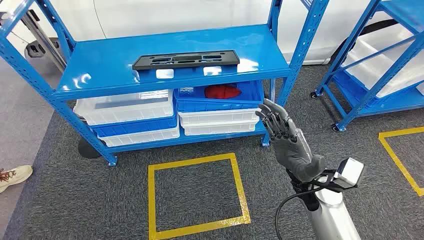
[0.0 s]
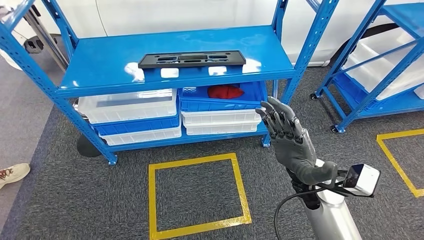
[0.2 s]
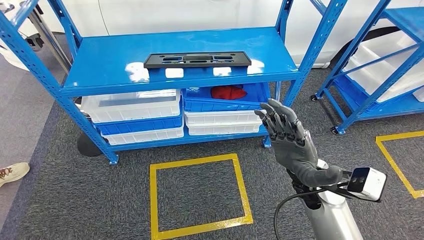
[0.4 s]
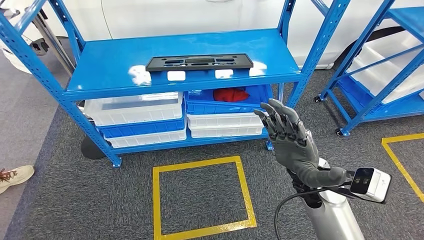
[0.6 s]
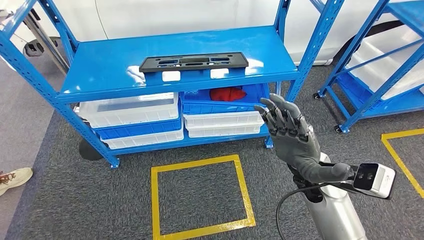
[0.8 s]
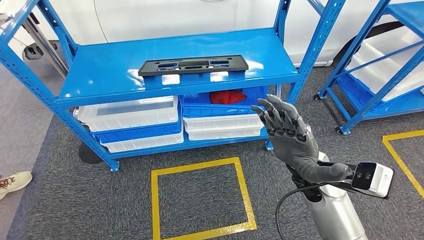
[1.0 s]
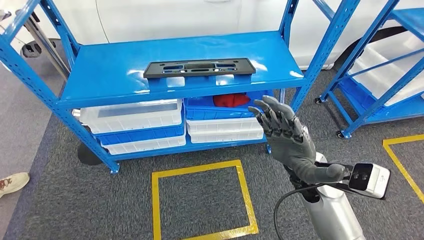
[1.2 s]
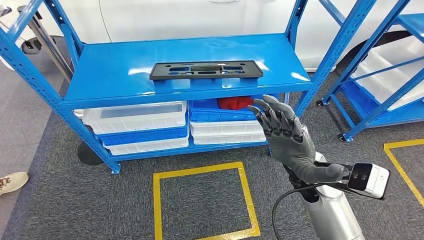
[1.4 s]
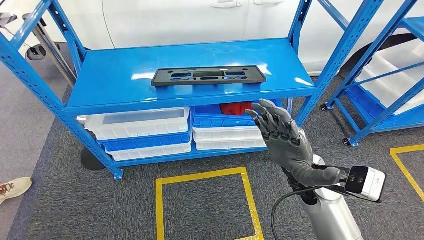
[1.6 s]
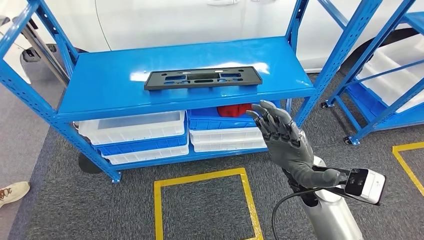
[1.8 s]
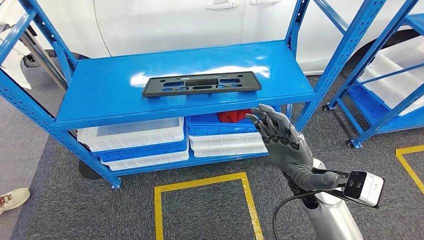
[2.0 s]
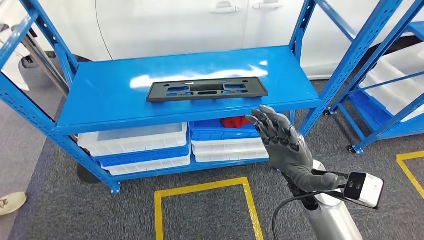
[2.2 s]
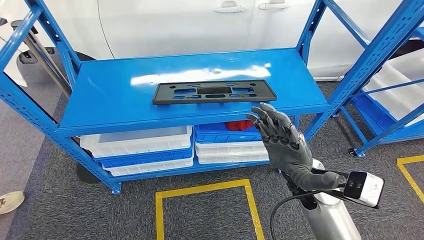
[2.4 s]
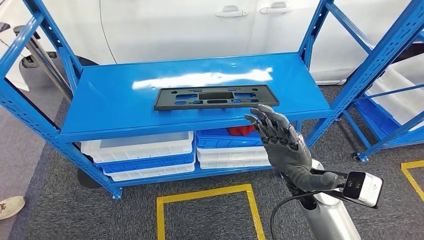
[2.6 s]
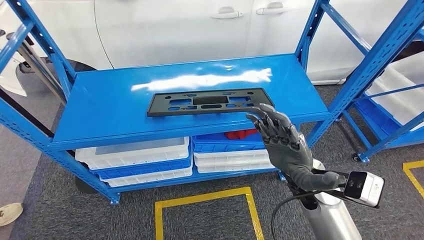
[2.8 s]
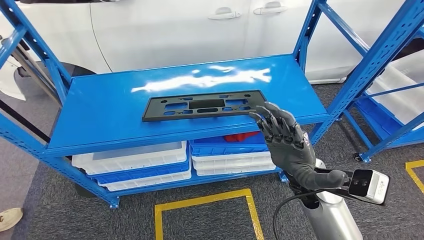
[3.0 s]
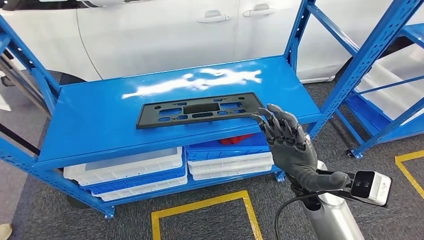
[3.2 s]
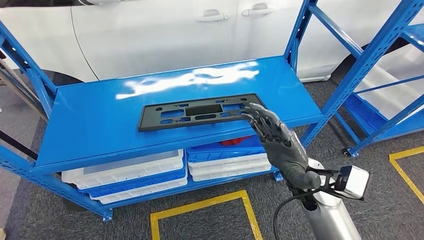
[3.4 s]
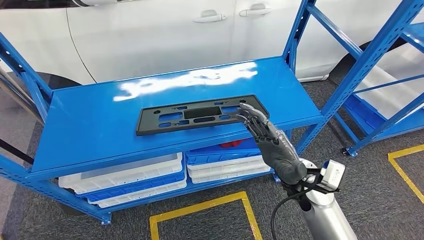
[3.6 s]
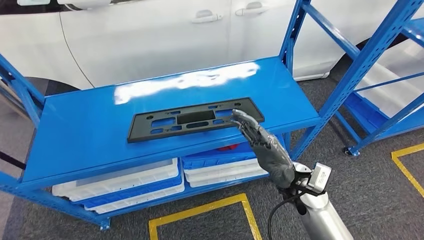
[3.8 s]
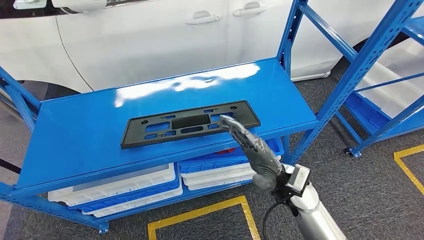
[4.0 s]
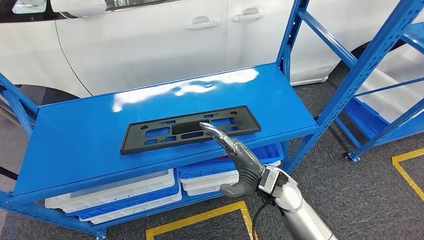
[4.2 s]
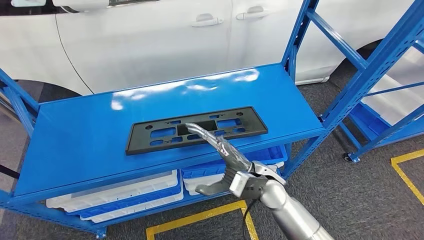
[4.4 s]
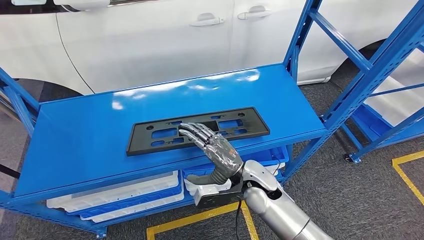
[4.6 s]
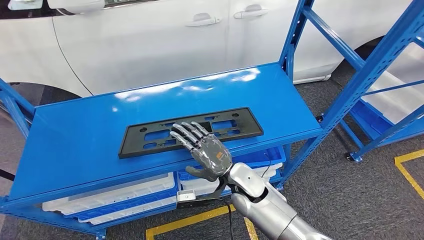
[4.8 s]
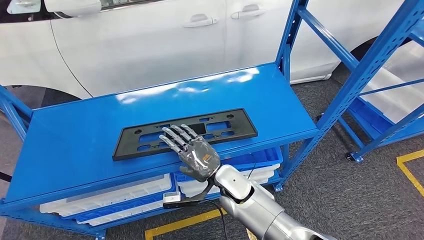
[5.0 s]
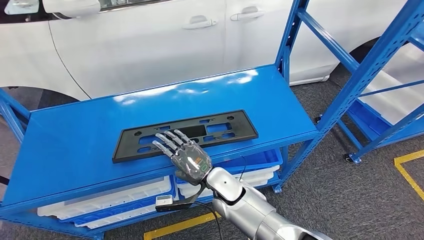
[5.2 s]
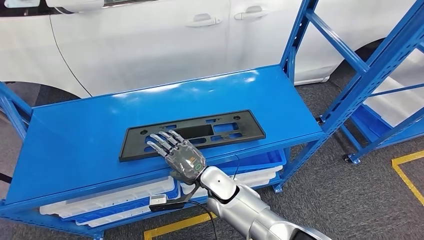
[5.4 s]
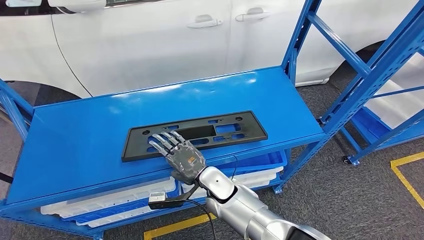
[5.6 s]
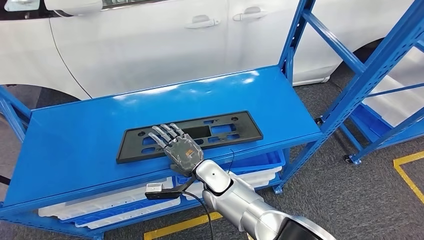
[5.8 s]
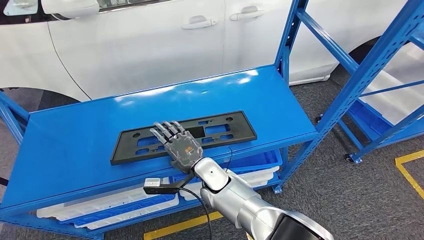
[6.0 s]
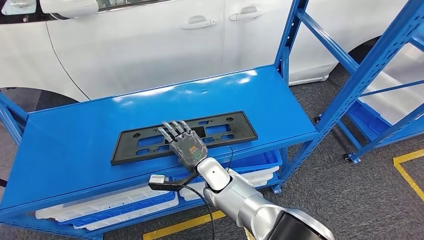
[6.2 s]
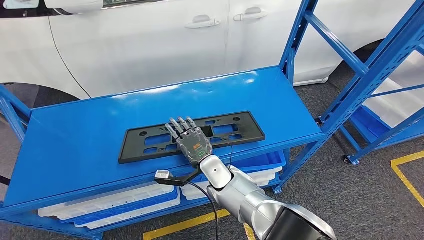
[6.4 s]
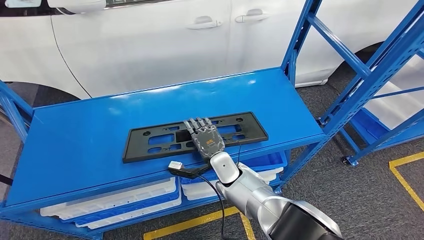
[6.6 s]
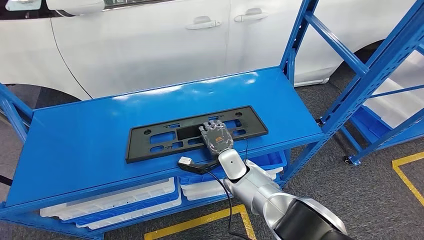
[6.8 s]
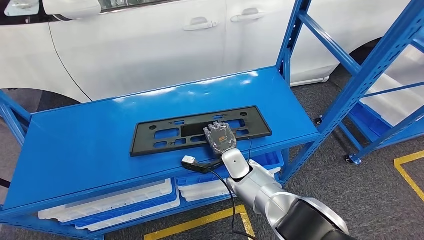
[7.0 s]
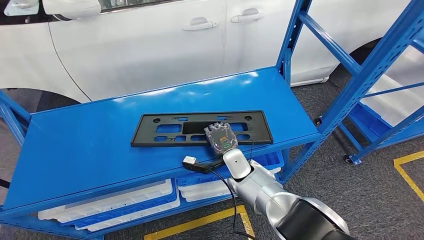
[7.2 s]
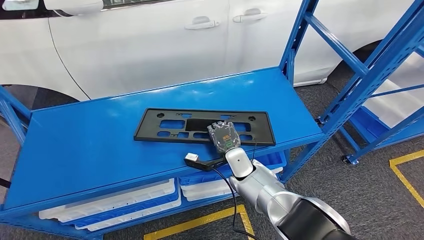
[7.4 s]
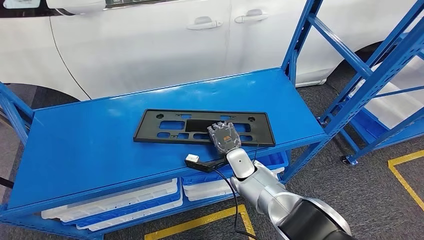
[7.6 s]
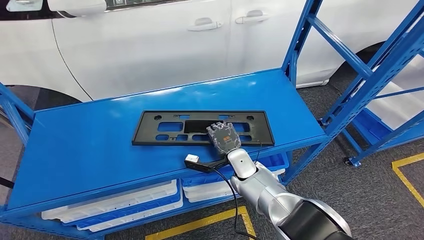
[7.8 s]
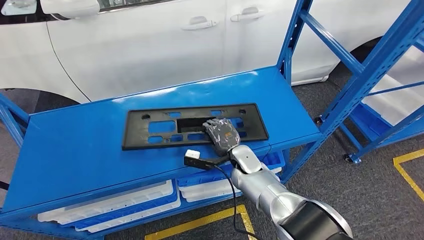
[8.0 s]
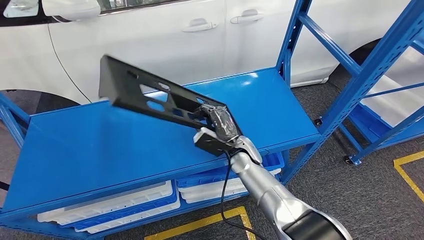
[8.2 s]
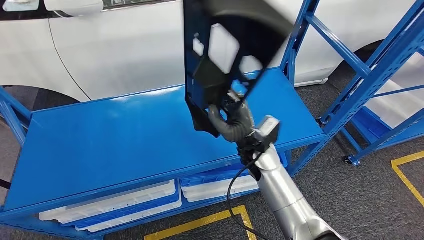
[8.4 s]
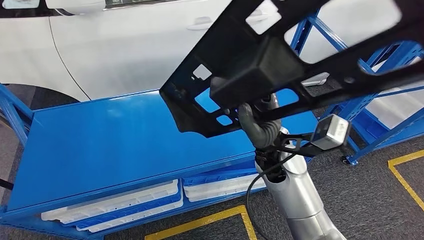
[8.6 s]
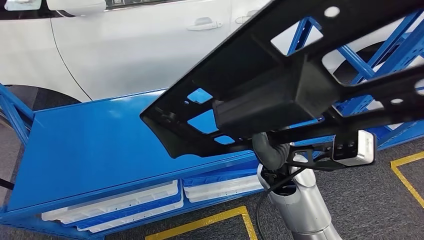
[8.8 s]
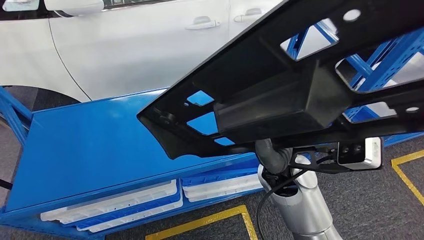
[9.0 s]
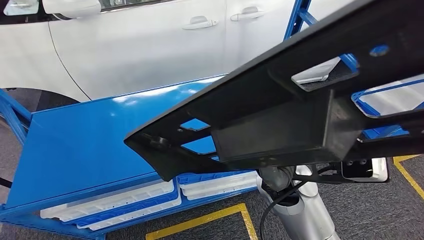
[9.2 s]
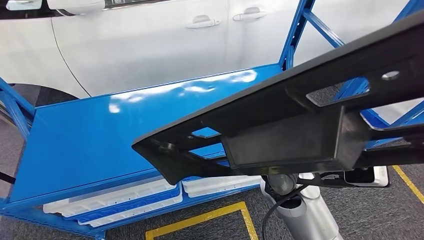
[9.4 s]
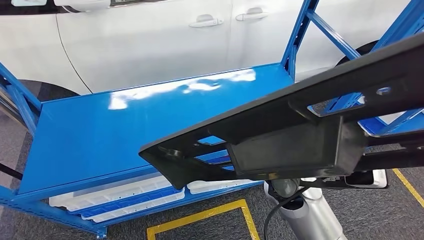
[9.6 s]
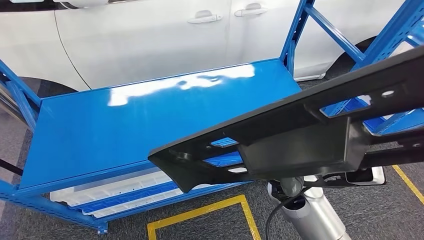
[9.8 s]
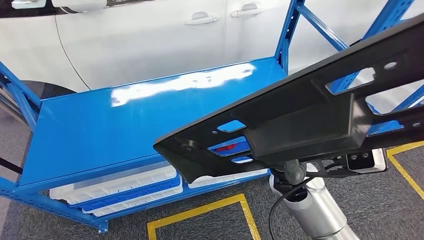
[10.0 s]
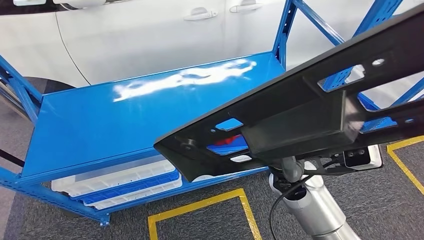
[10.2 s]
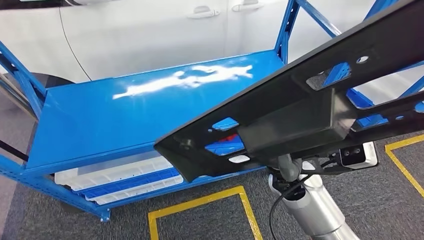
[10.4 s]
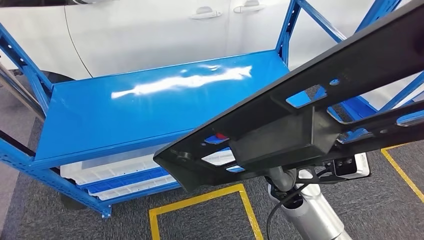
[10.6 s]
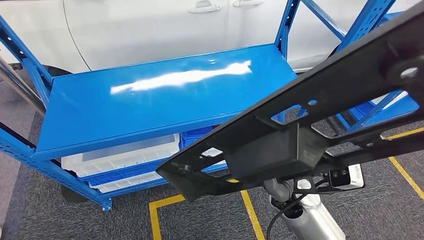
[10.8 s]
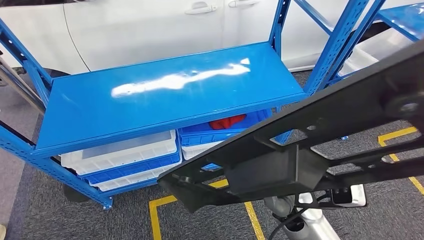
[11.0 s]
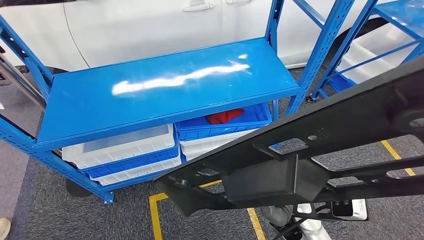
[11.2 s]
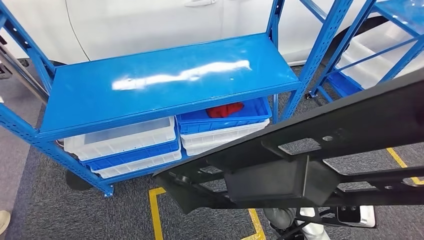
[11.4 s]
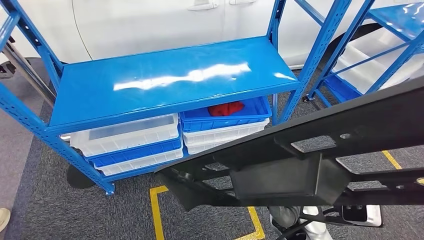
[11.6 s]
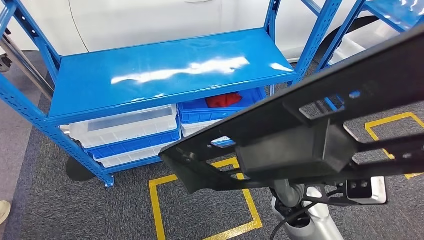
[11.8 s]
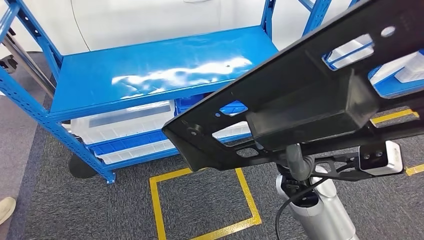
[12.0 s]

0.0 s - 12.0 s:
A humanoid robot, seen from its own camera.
Step, 0.0 s - 9.6 s: Pick up the large material from the shelf.

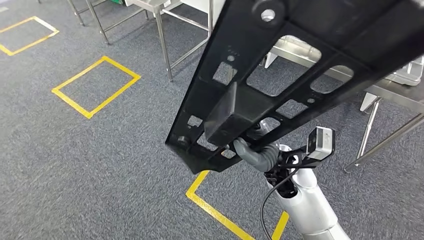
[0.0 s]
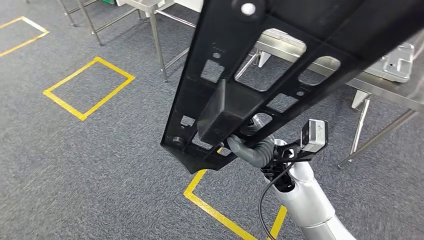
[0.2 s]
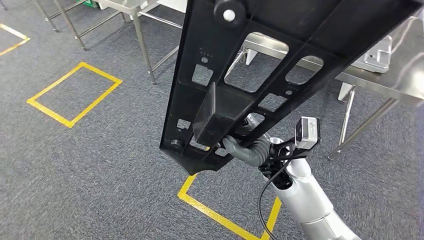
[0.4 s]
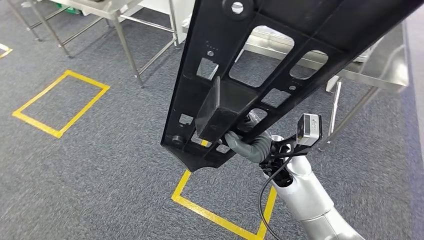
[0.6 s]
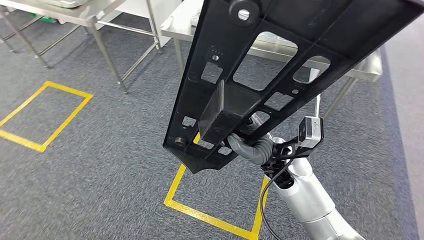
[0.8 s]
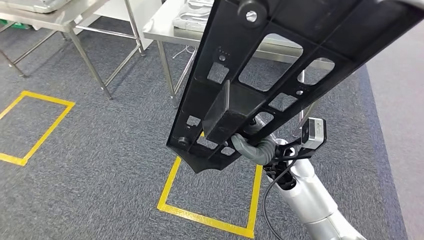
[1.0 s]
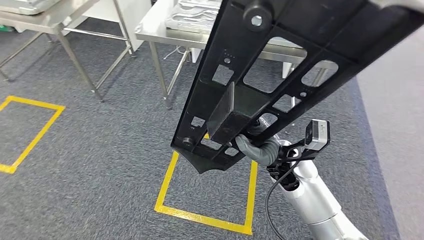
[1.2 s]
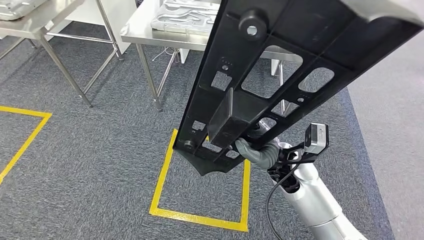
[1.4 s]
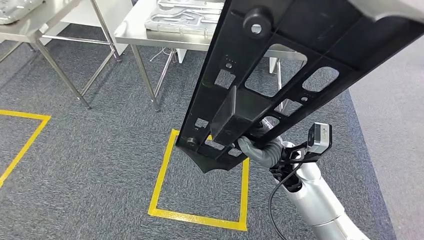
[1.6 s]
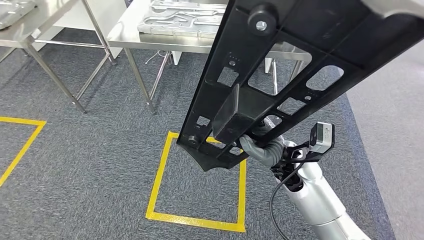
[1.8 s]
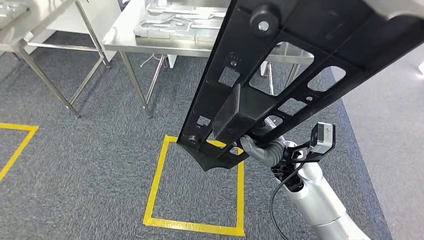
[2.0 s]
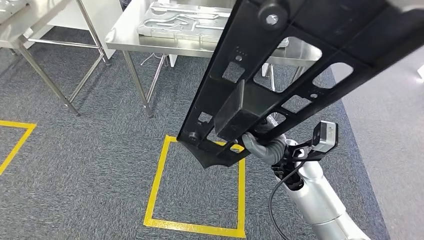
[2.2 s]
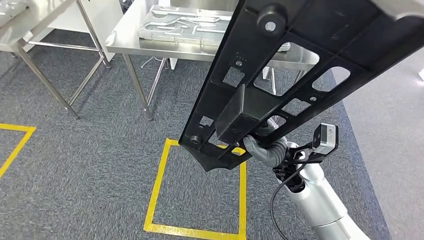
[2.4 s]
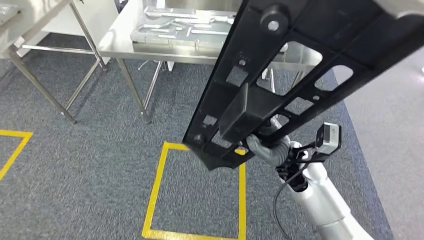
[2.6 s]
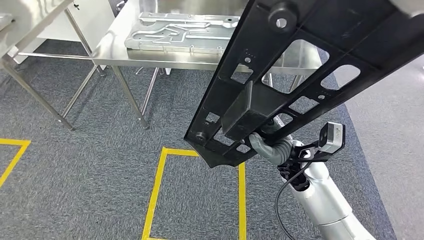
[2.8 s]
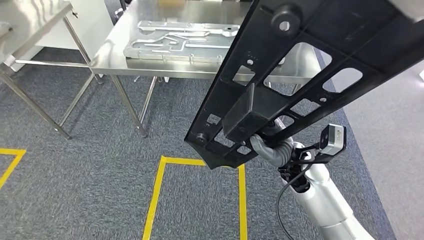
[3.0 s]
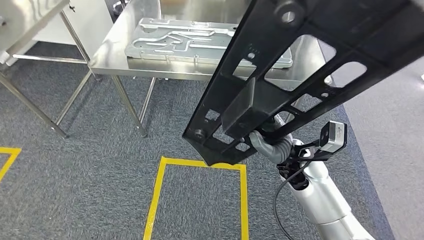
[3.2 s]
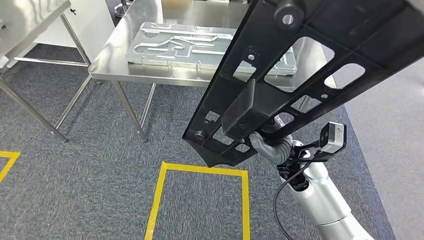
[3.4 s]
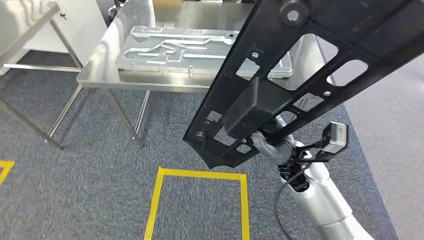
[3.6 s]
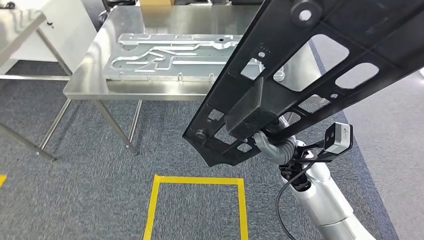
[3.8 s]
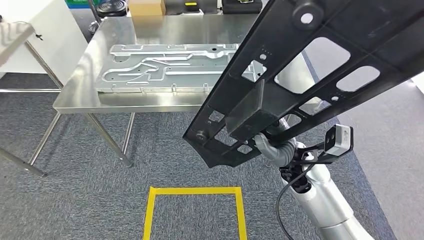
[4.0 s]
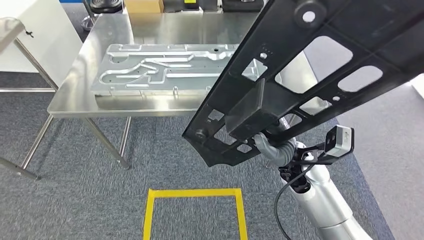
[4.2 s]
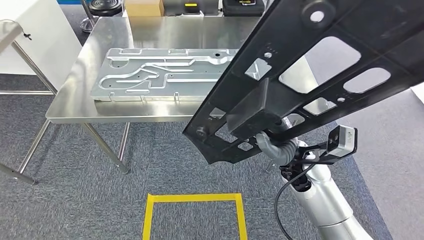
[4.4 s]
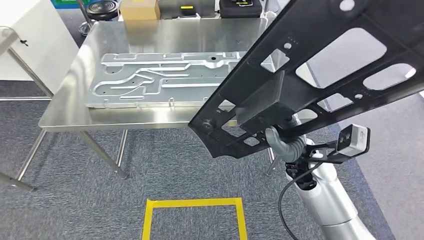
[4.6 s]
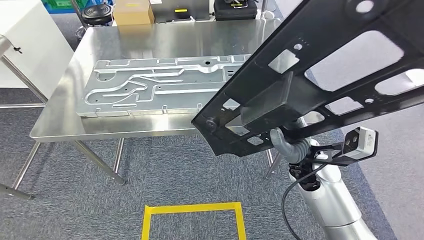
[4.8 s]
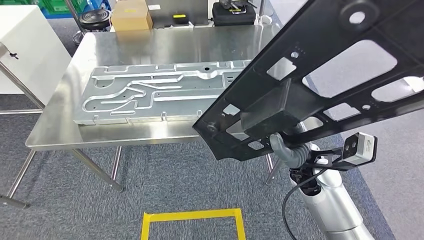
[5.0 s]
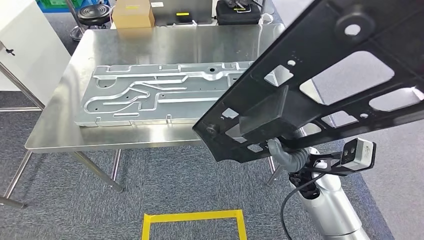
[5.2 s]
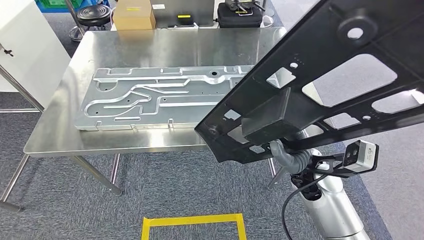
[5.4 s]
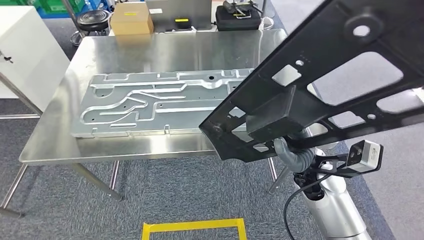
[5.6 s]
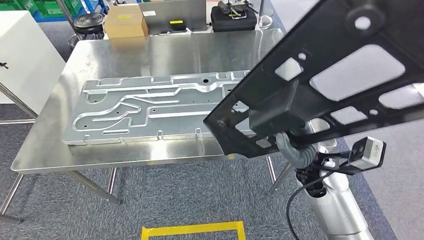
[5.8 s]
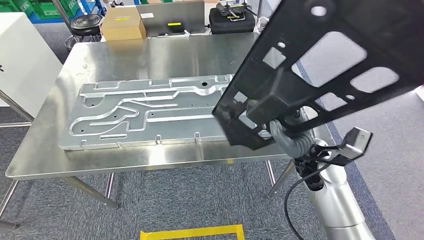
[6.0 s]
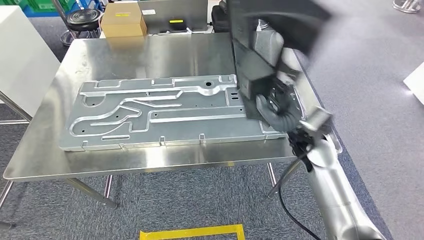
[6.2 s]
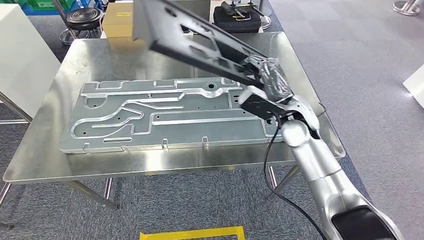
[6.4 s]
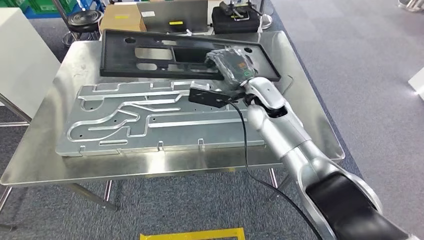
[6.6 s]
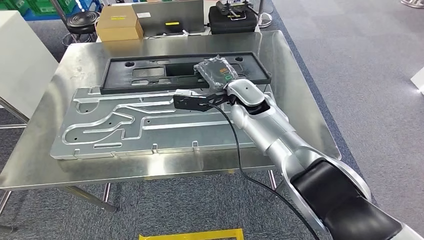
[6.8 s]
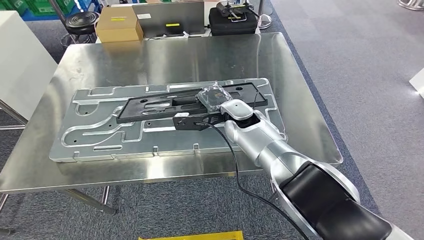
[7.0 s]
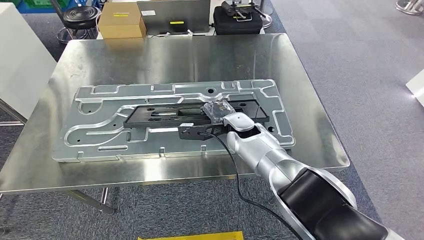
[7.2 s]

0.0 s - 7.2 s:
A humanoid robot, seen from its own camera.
Step, 0.0 s - 5.8 s: Move the large material to the workbench.
